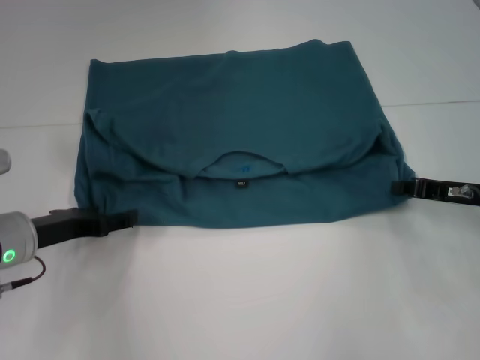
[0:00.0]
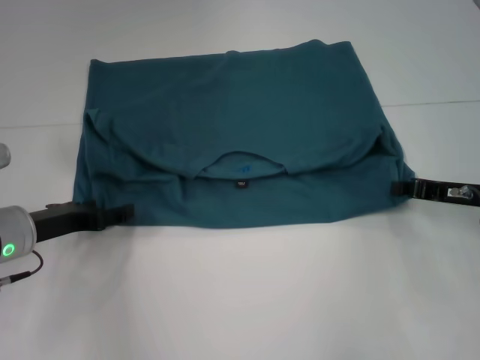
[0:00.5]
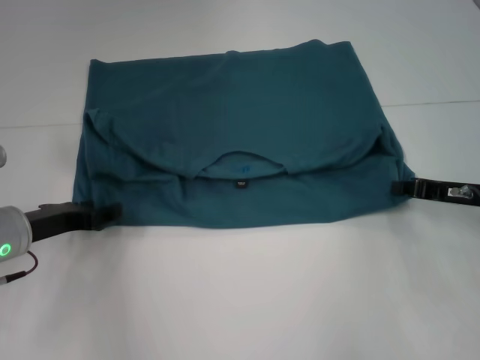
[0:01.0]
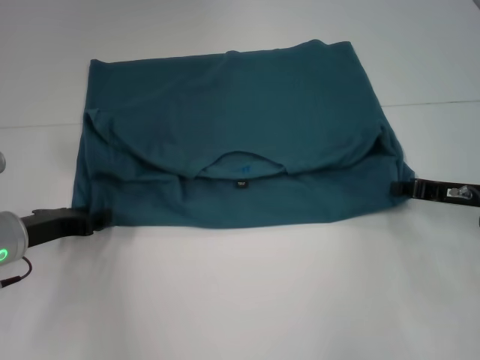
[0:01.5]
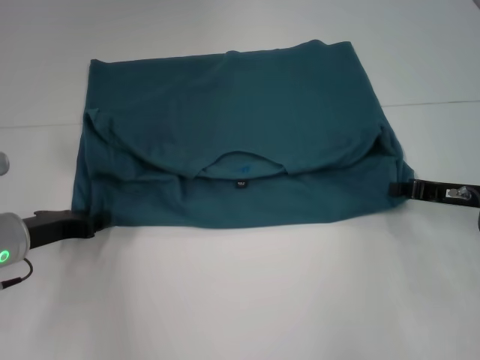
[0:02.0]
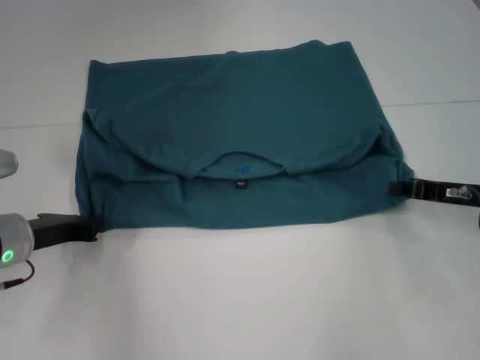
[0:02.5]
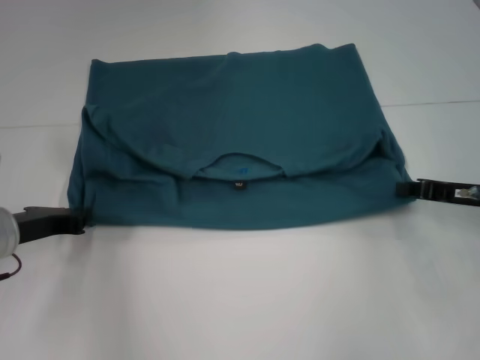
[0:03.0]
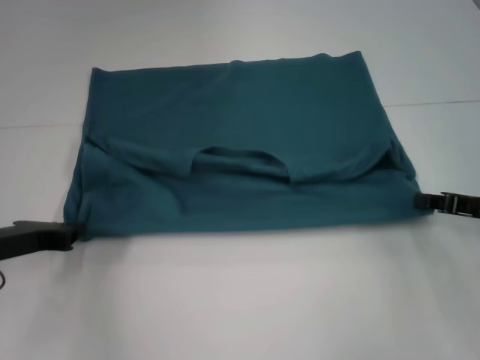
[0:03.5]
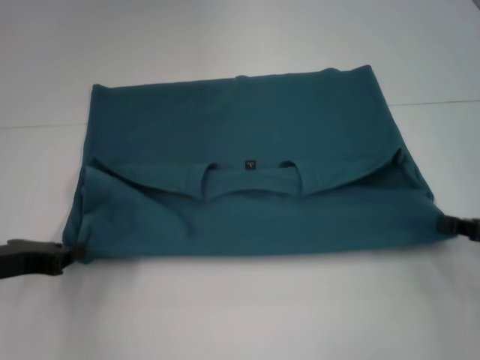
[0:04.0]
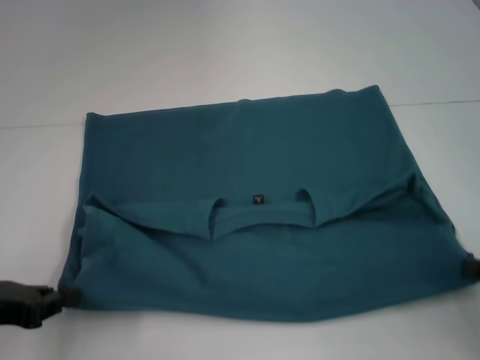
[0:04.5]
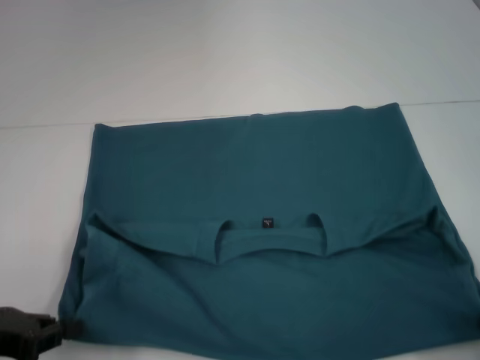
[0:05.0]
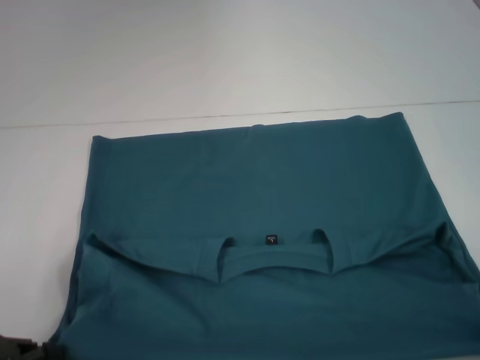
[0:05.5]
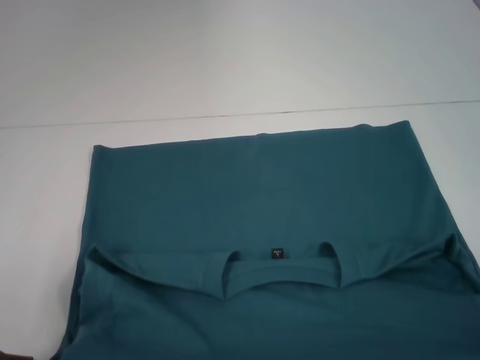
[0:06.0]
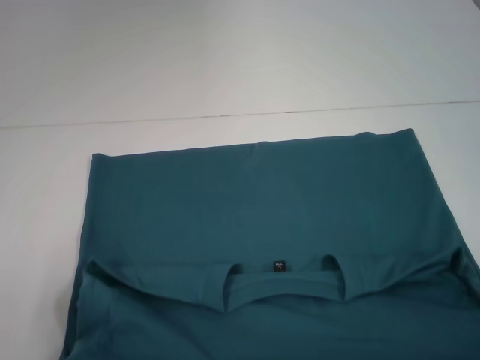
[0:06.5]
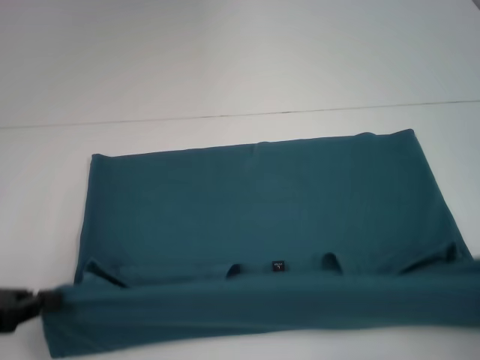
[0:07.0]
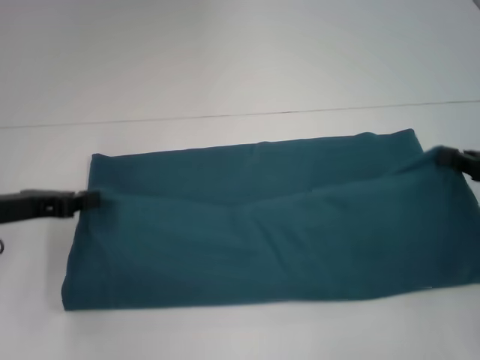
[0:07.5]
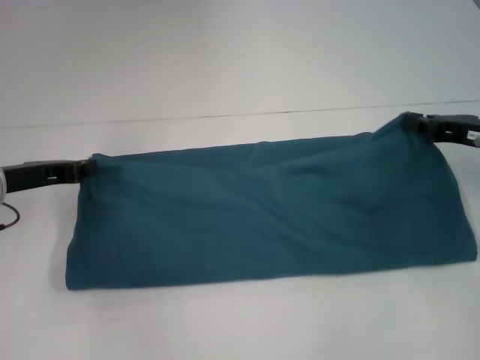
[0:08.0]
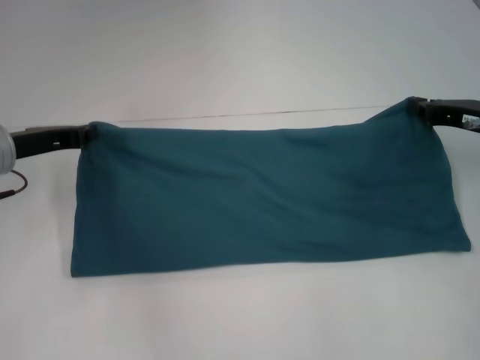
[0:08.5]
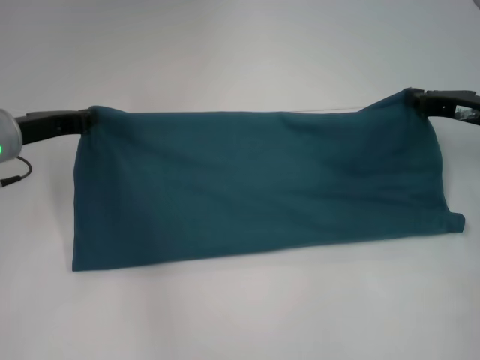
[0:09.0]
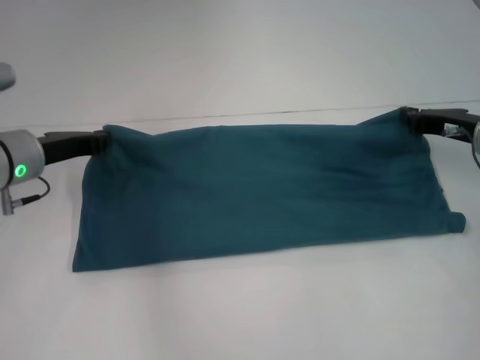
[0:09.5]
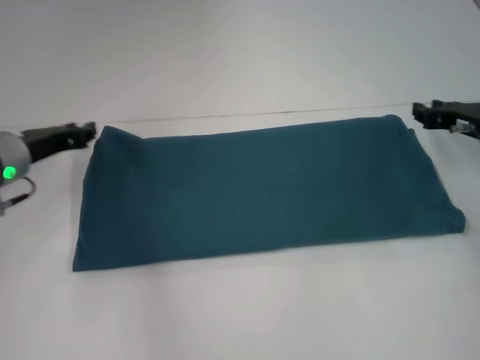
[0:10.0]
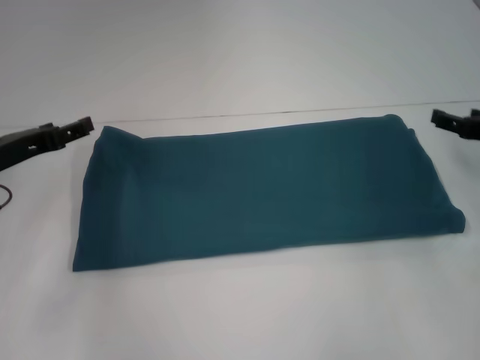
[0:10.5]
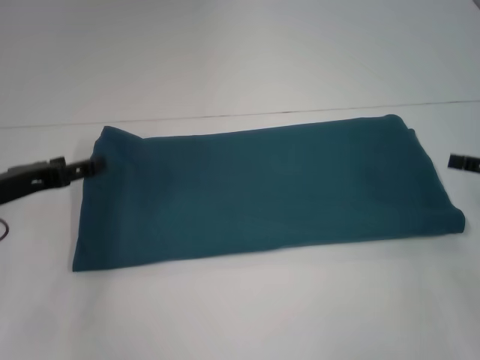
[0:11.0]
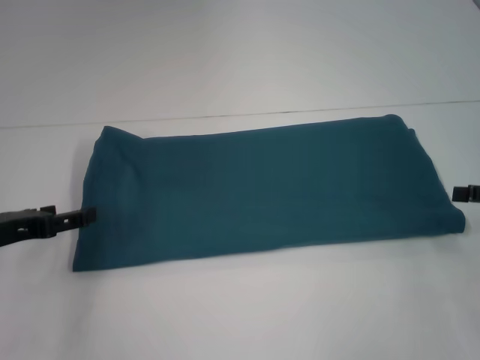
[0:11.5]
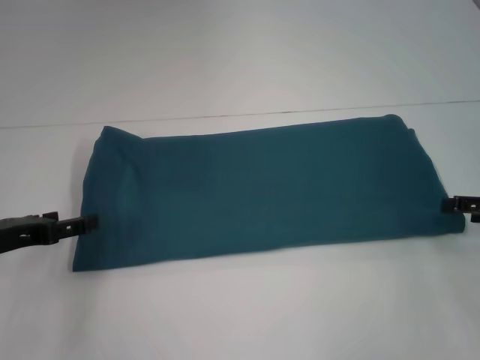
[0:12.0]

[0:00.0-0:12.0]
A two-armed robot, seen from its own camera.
Step, 0.0 to 6.0 s: Pull the clothes with your left hand.
Step, 0.0 to 6.0 s: Pull the clothes with your right hand.
Step, 6.5 to 10.0 s: Fold the clothes to the left.
Step, 6.5 to 10.0 s: Fold the clothes to the right.
0.0 to 2.0 s: The left gripper closes up.
2.0 to 4.0 s: The right gripper is displaced backward and to the right by approximately 10 cm. The left gripper shifts by about 5 cm, and closes up.
4.0 to 6.0 s: The right gripper is displaced backward by roughly 15 cm; the left gripper goes approximately 10 cm backward.
6.0 to 8.0 s: The grippers both shift forward by some 20 cm.
10.0 to 12.0 s: The right gripper is displaced backward and to the right by approximately 10 cm, and opens. Meanwhile the left gripper moves backward and to the left, roughly 10 cm, and opens its fingers.

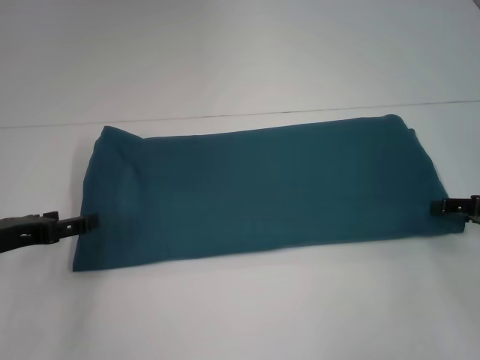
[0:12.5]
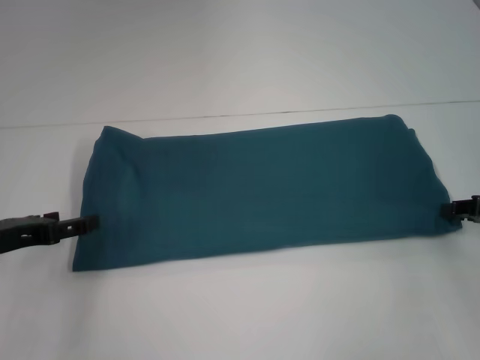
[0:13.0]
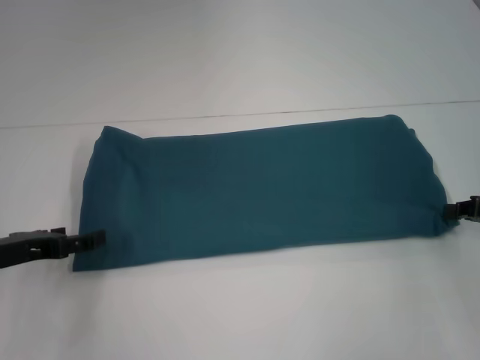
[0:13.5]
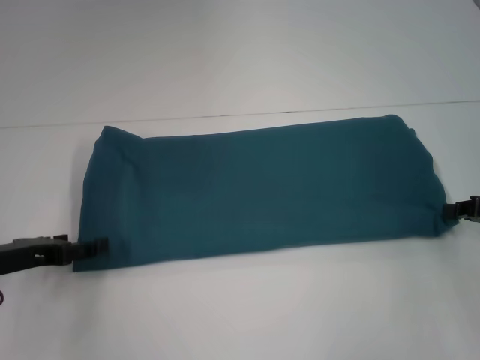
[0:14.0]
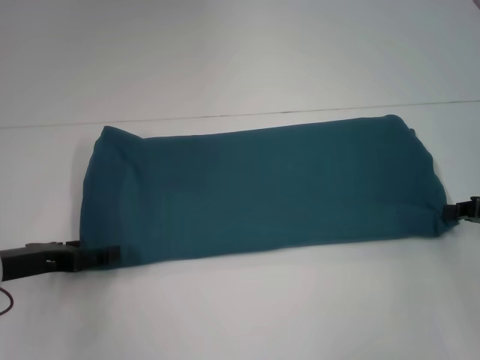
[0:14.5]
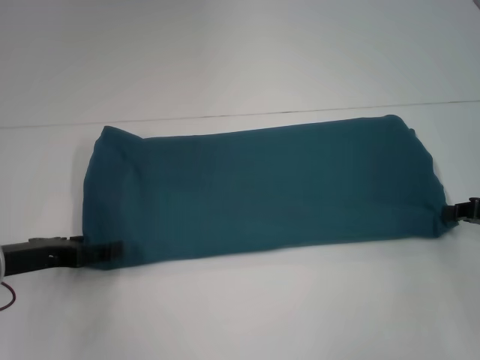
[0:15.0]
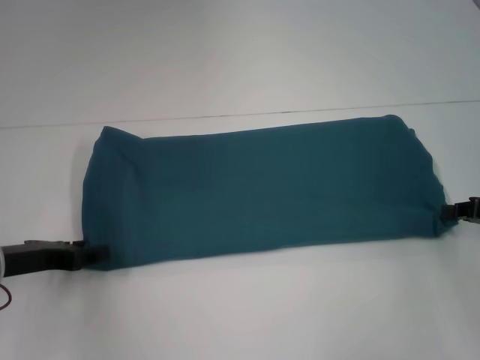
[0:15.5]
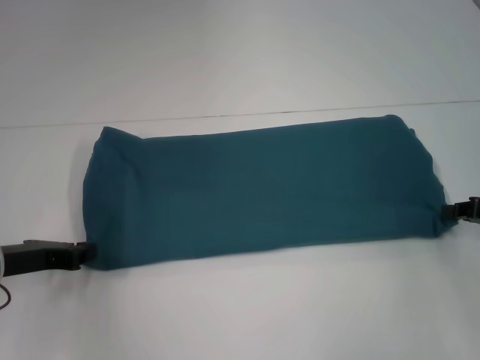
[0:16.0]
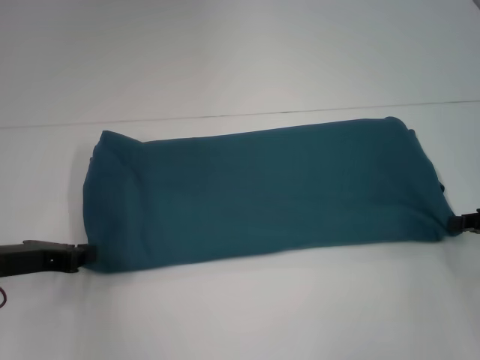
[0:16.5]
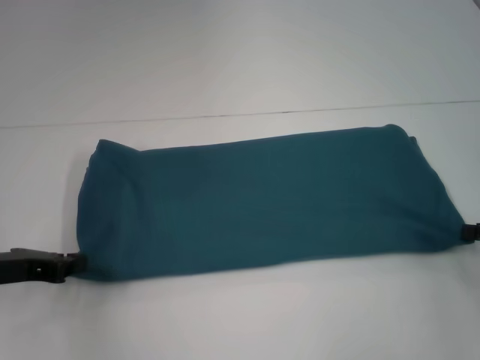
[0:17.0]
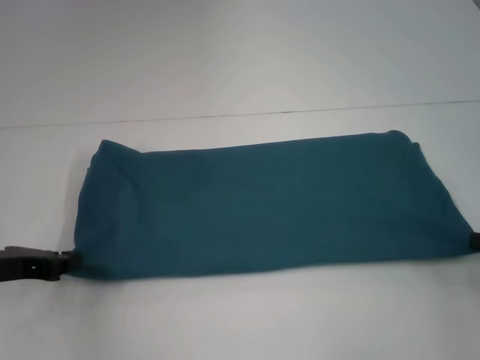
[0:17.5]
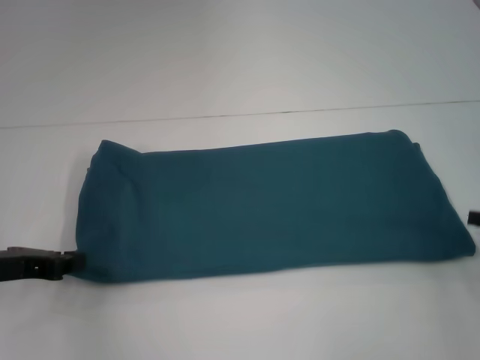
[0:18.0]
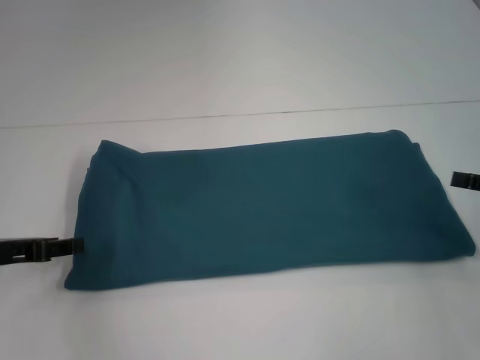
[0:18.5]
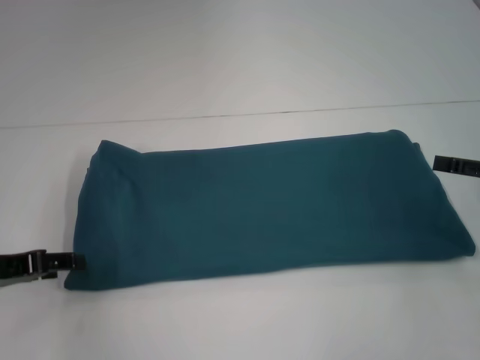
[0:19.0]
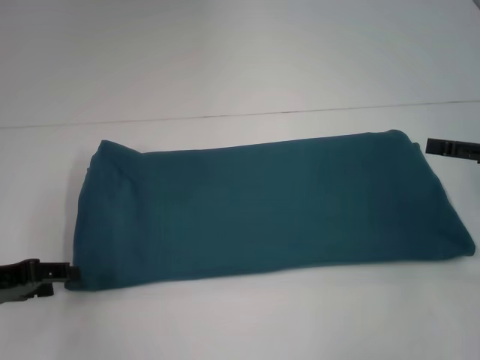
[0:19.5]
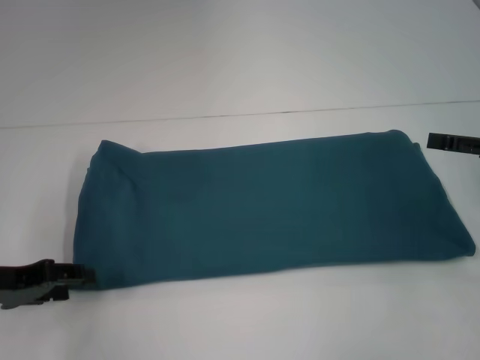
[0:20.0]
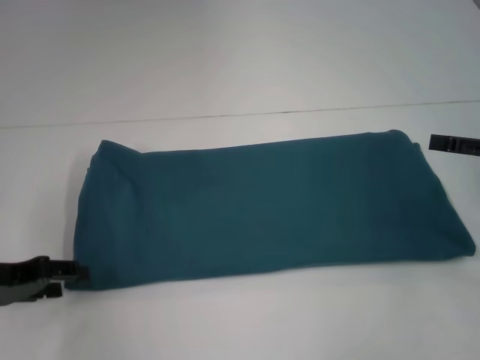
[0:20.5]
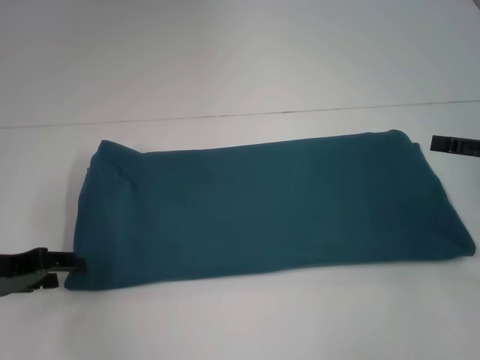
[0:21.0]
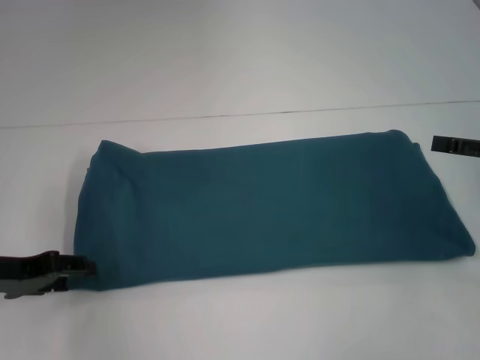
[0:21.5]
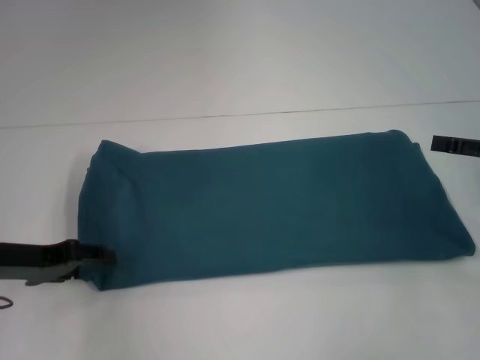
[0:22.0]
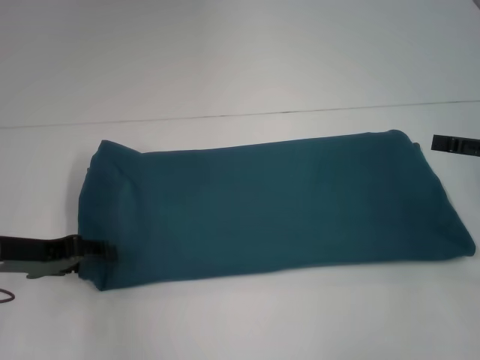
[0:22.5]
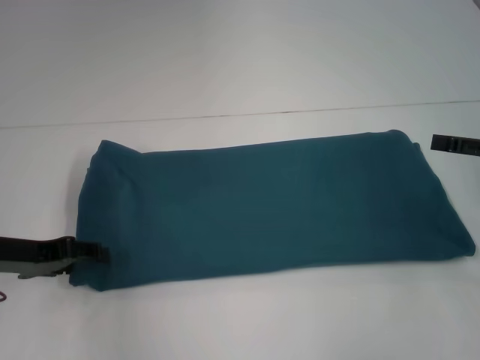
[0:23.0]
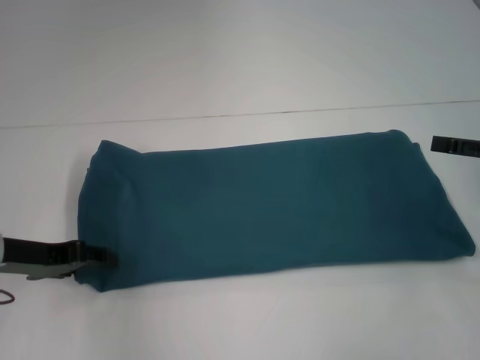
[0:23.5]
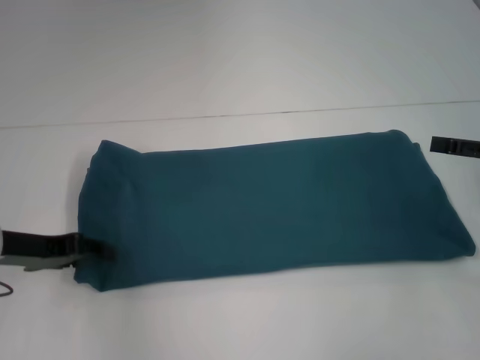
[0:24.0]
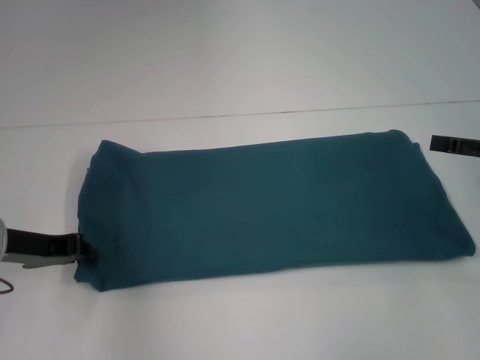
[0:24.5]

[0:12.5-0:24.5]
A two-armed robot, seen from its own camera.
14.5 to 16.5 s: The left gripper closes its fingers.
16.5 to 18.5 s: The right gripper opens.
18.5 to 20.5 s: The right gripper opens. The left gripper opens up.
20.5 to 22.5 s: There are only small adjustments of the grippers.
22.5 to 24.5 s: The left gripper closes its fingers.

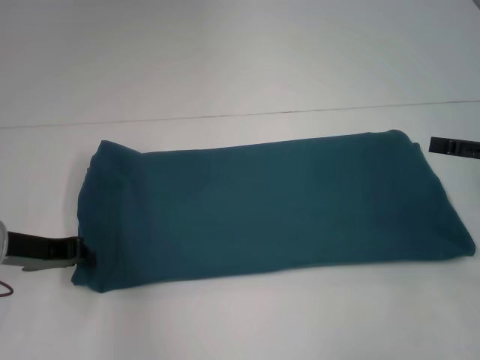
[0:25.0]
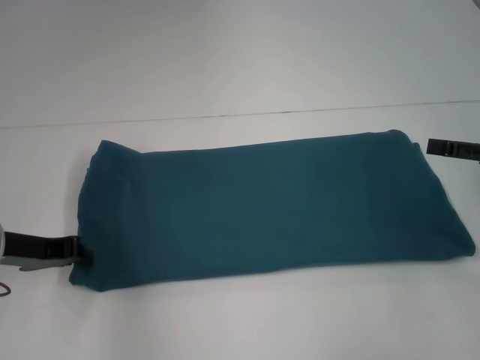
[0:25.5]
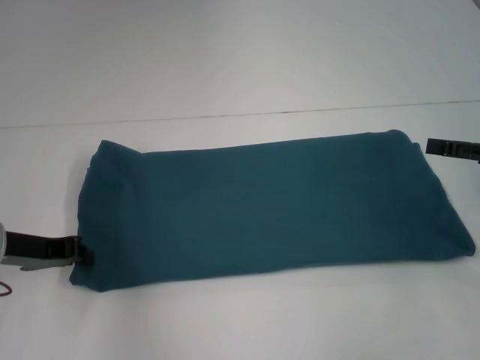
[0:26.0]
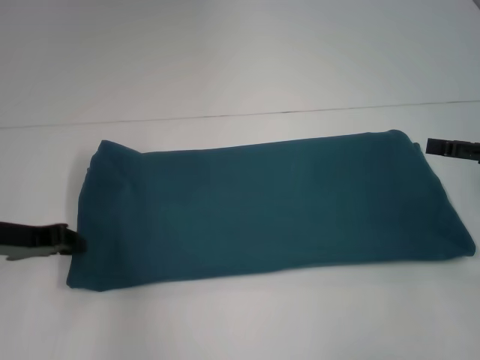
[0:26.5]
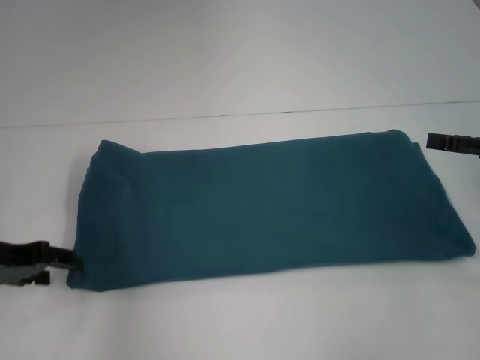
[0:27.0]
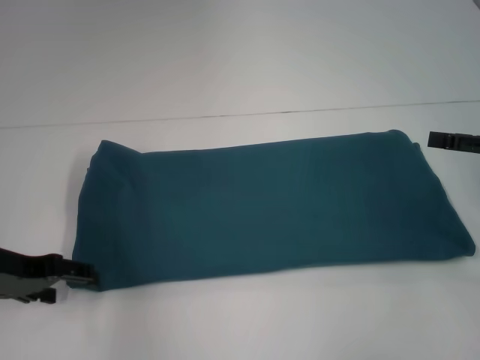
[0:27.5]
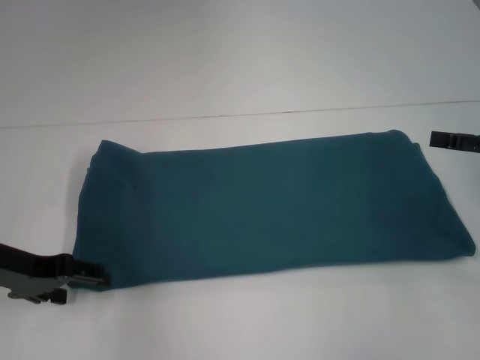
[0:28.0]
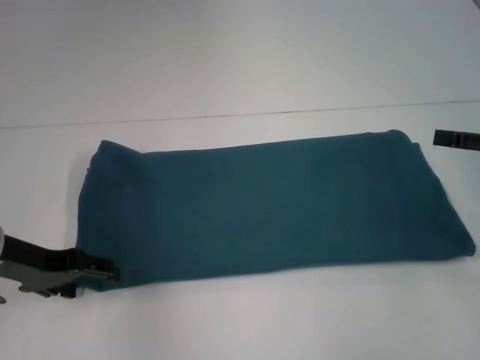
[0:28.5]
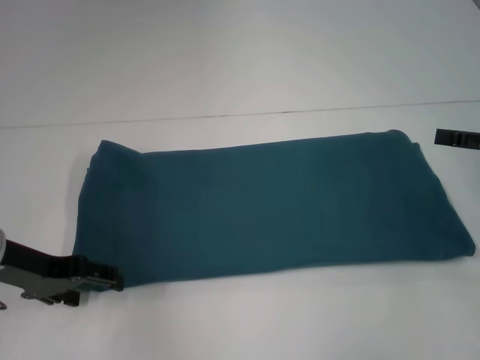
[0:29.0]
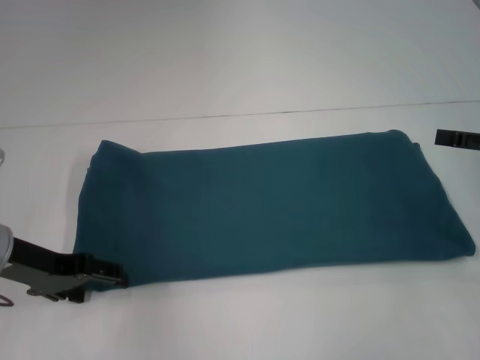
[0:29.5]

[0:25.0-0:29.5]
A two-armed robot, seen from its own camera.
25.0 to 27.0 s: The left gripper opens its fingers.
27.0 to 29.5 s: The left gripper opens its fingers.
